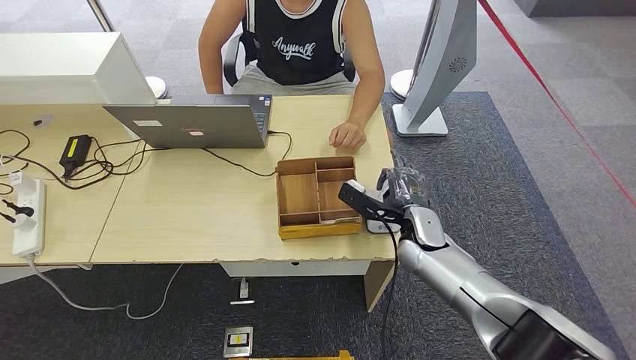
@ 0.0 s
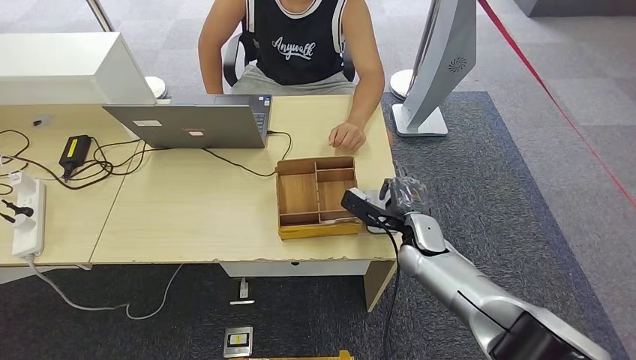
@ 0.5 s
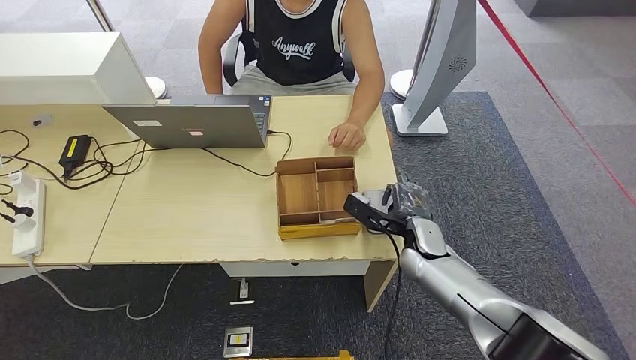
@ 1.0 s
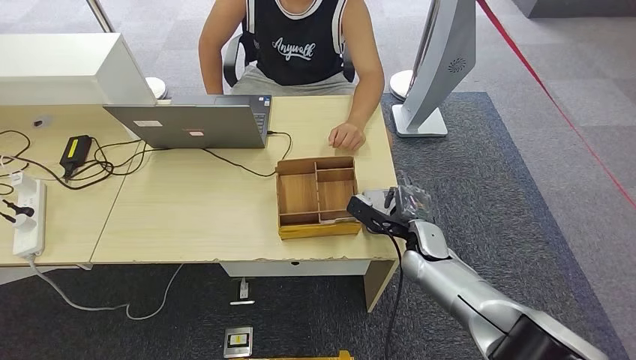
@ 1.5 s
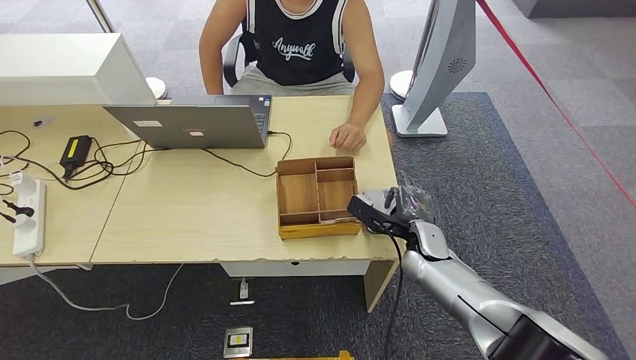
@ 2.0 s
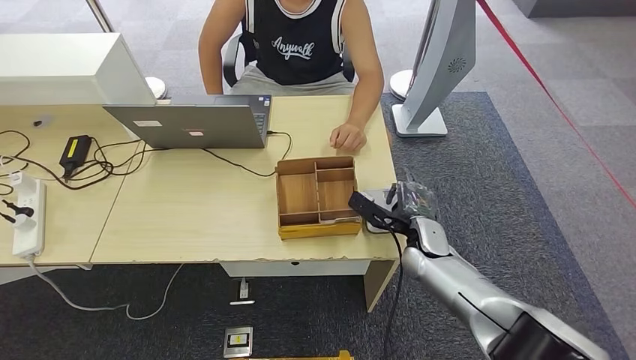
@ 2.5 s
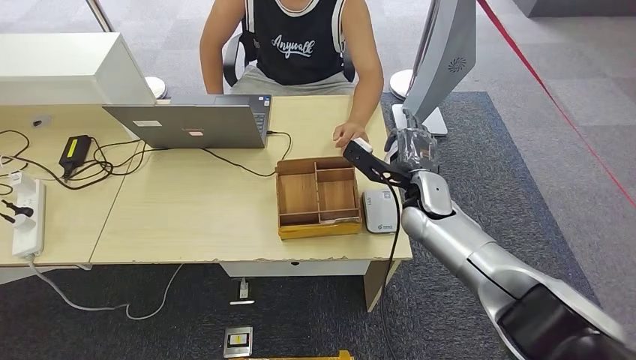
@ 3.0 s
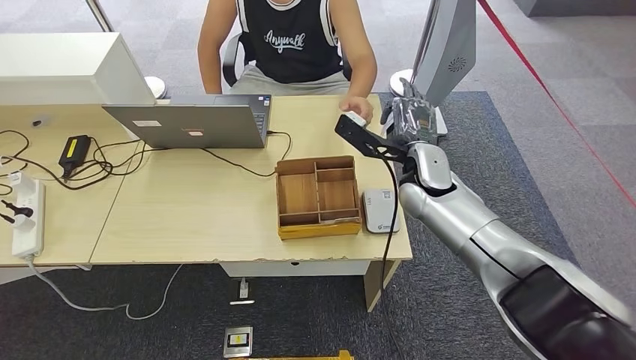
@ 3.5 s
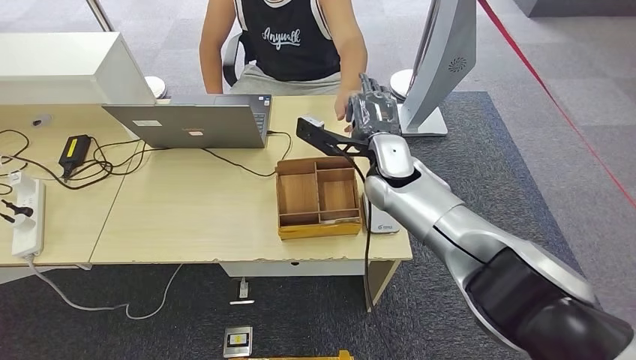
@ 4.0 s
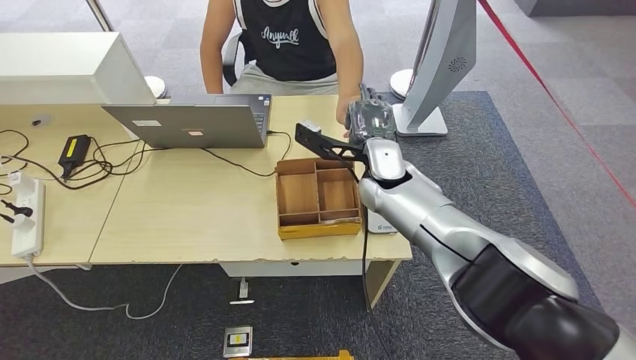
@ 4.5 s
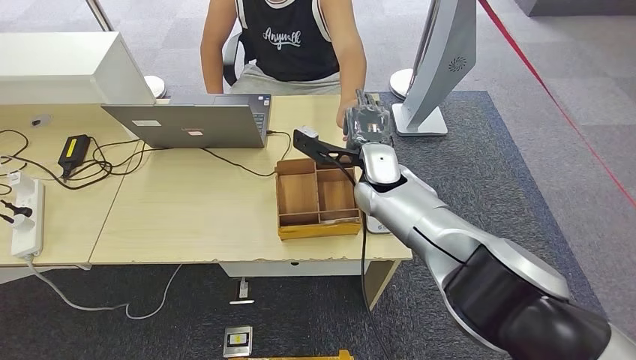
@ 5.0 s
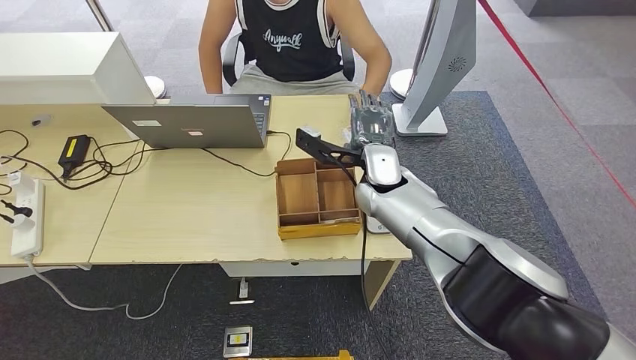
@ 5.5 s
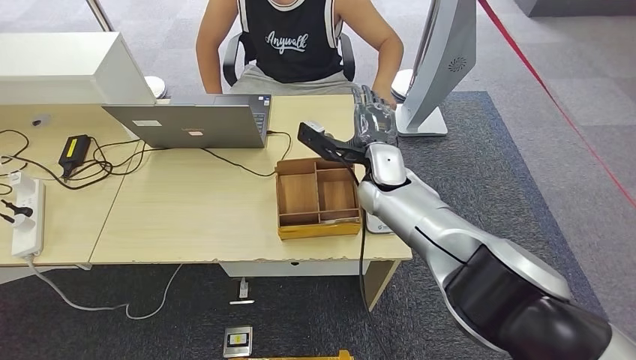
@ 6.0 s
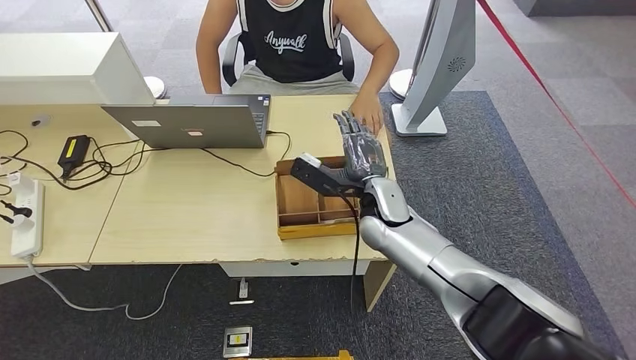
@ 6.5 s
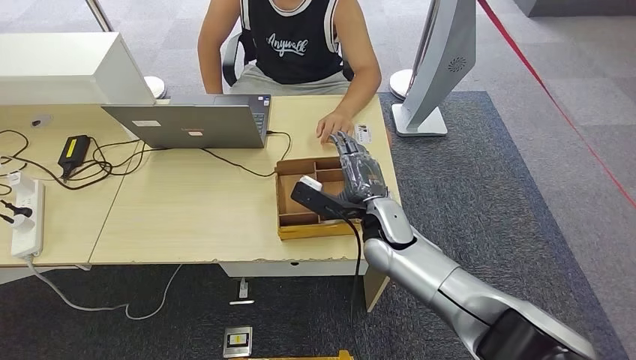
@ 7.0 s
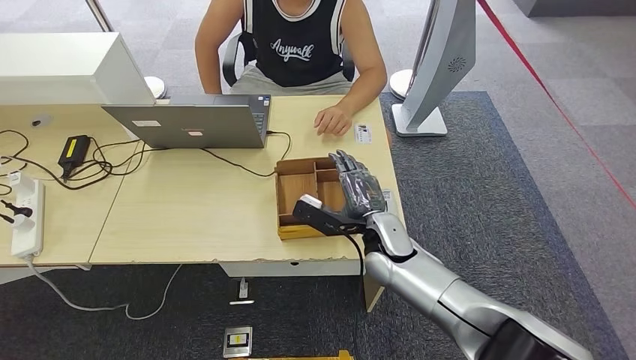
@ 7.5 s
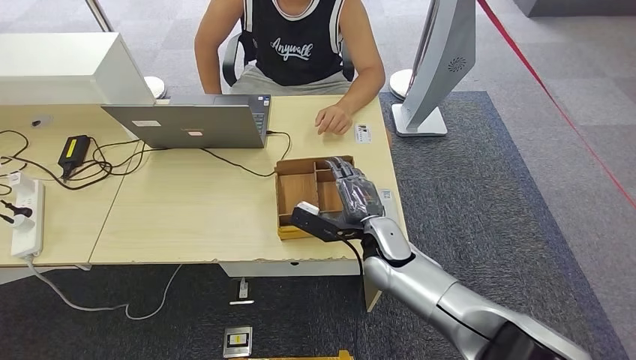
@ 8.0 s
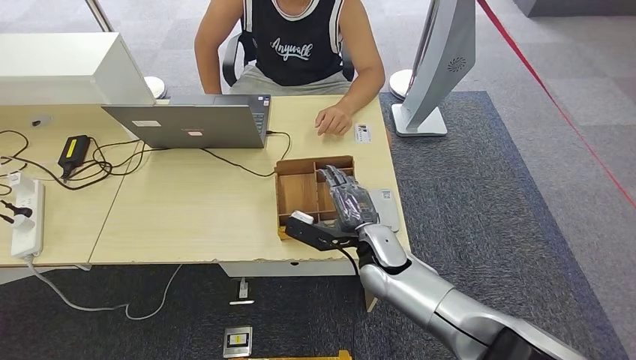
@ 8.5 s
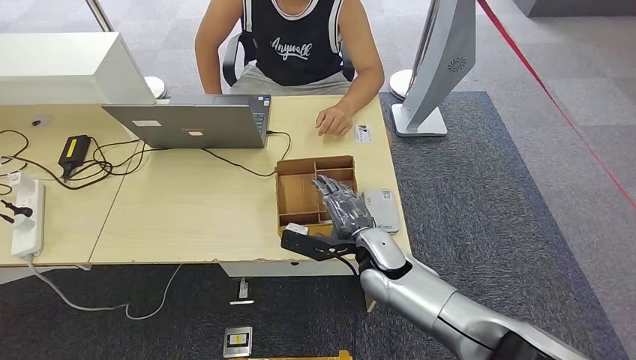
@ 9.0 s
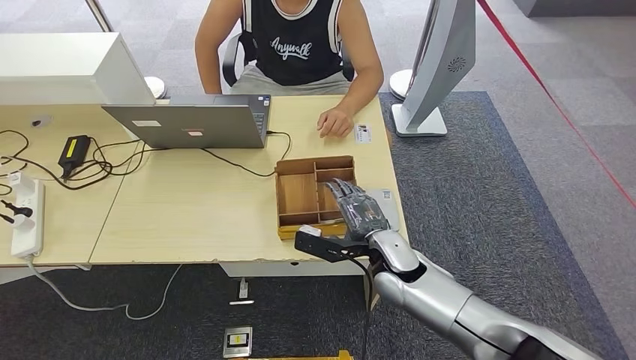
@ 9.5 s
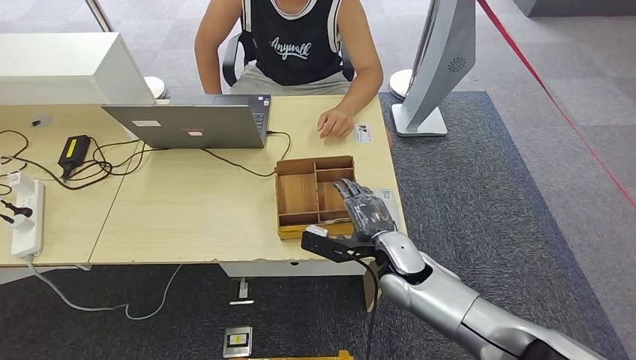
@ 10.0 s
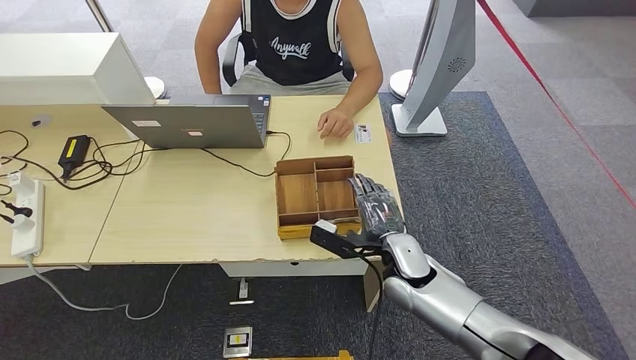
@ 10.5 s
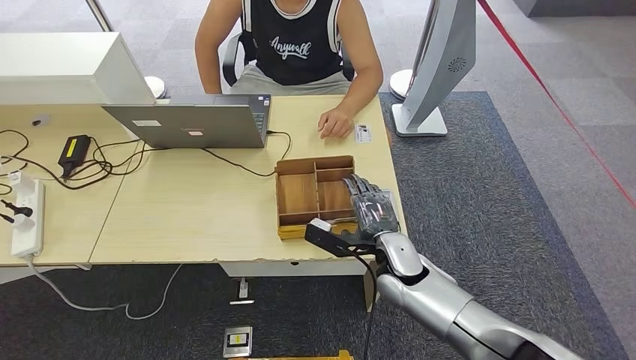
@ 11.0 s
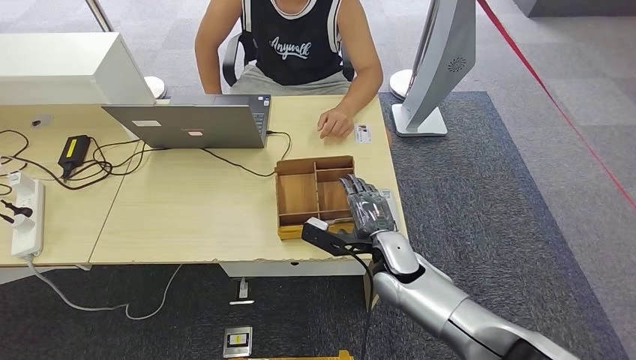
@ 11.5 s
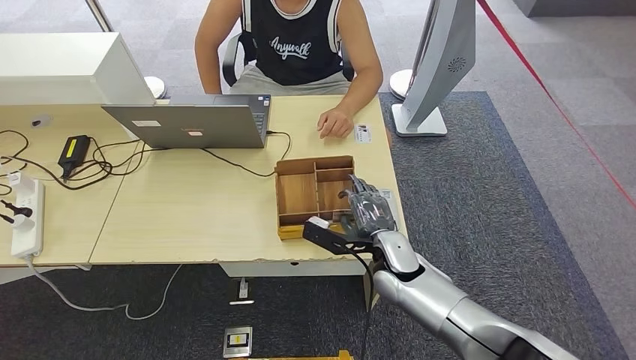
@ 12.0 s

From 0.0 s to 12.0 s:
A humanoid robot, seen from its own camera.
Step, from 2.5 s to 5.0 s: Hand the ID card to the person.
From 0.0 s to 2.0 s: The hands move only a little.
From 2.0 s to 4.0 s: The right hand is displaced upward, to the left and forward by some 20 cm.
From 4.0 s to 6.0 s: The hands move only a little.
From 6.0 s to 8.0 s: The right hand heads downward and backward, covering approximately 15 cm.
From 8.0 s to 12.0 s: The hands make only small movements.

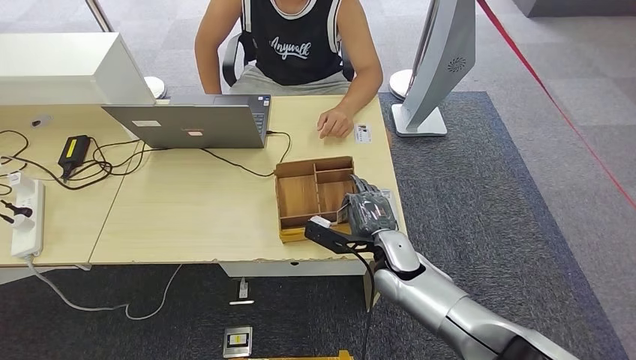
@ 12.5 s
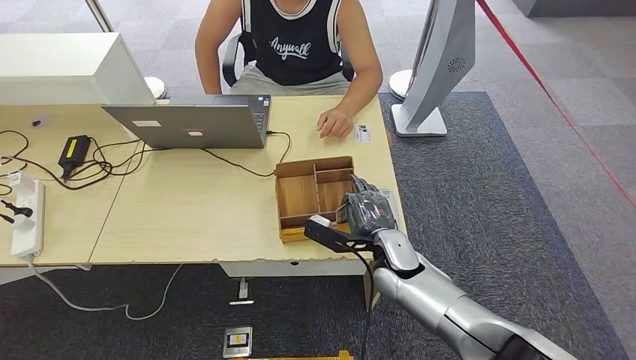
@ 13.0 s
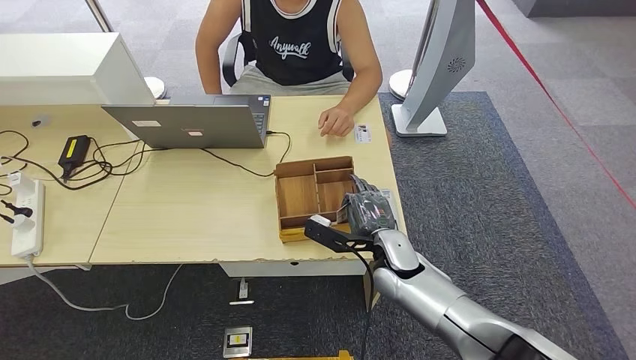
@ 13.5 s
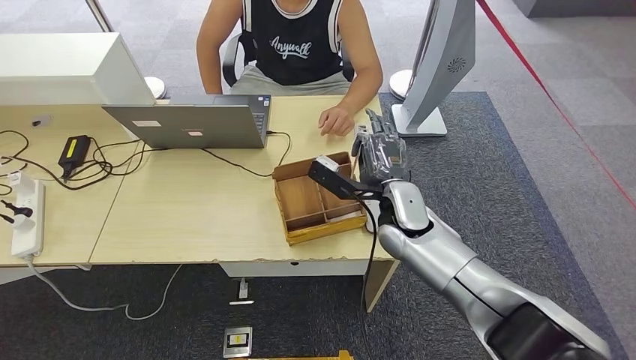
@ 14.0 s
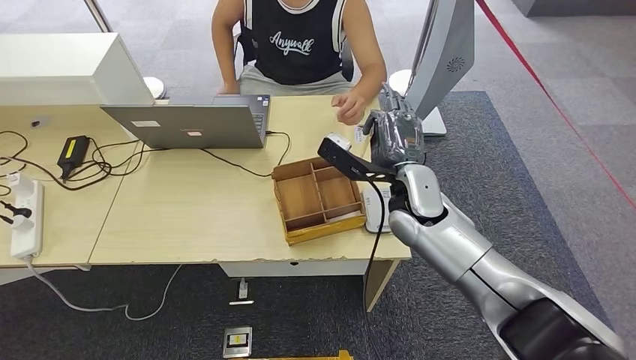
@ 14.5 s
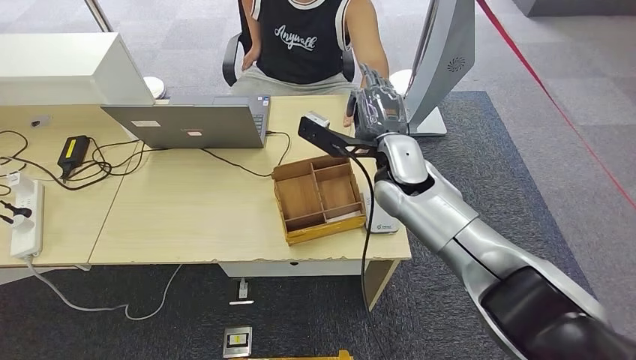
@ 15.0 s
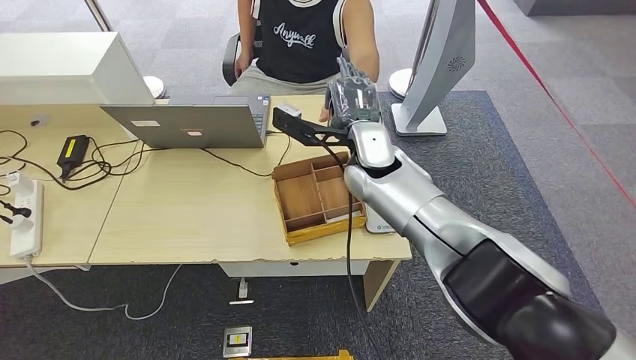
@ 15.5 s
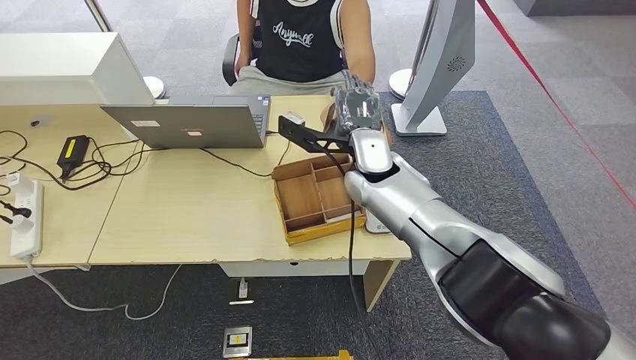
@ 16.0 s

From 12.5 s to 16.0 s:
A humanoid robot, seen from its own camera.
Step, from 13.0 s to 16.0 s: Hand the room key to the person.
From 12.5 s to 14.5 s: The right hand travels upward and forward by approximately 15 cm.
From 14.5 s to 16.0 s: The right hand travels to the left and forward by some 10 cm.
